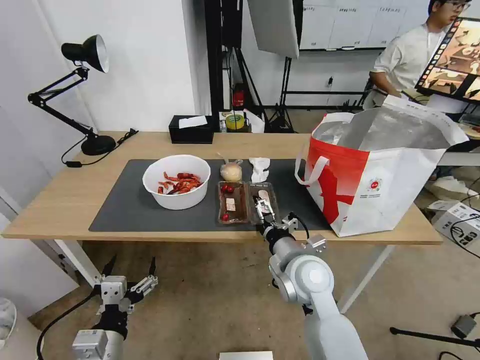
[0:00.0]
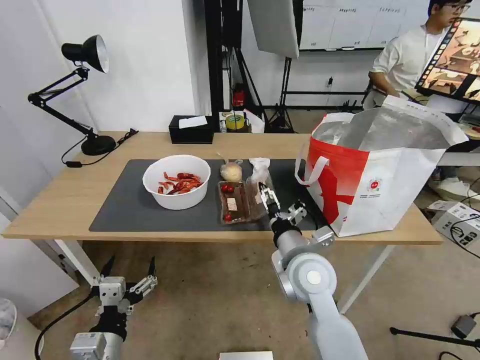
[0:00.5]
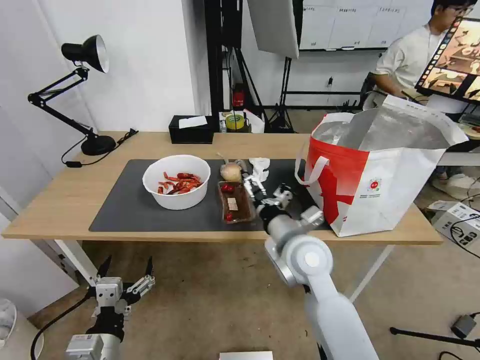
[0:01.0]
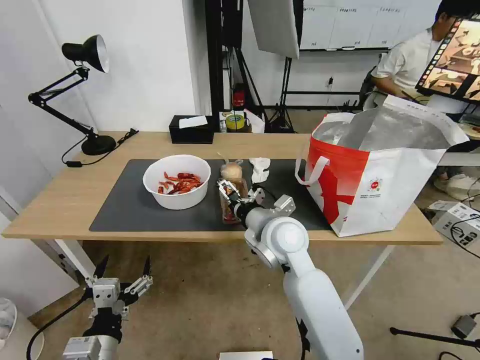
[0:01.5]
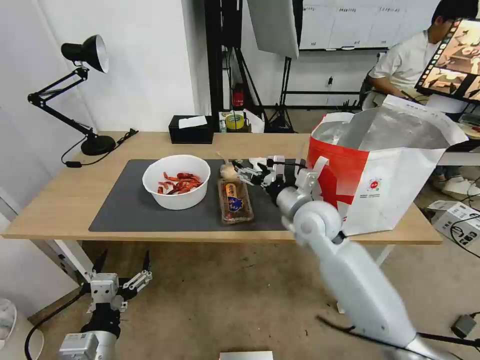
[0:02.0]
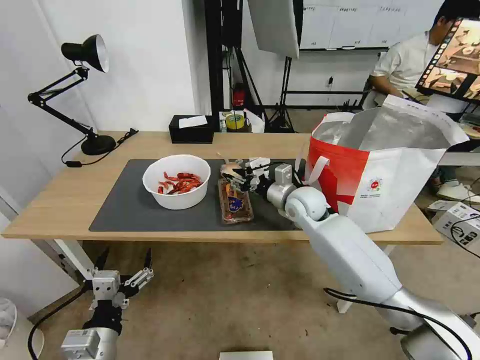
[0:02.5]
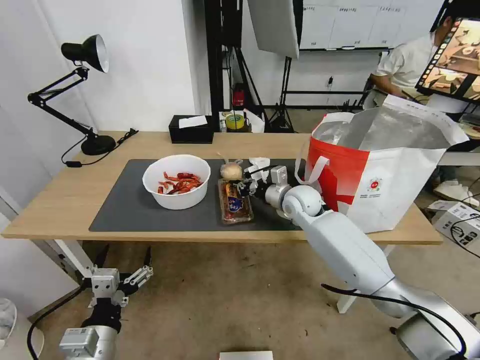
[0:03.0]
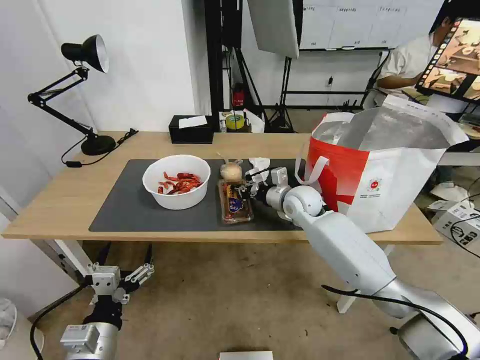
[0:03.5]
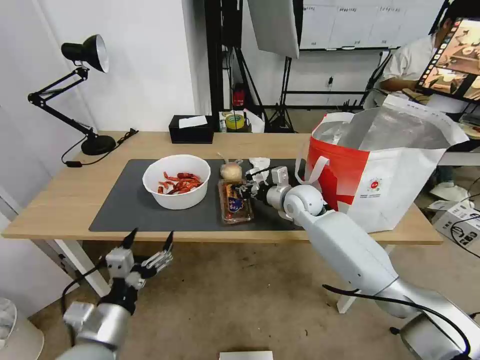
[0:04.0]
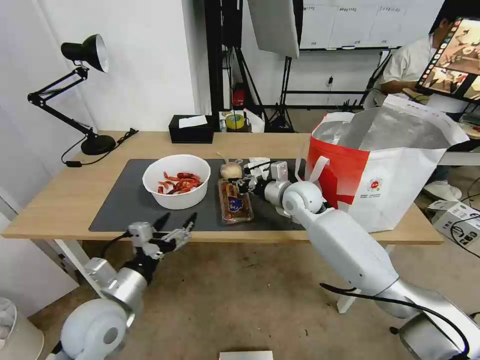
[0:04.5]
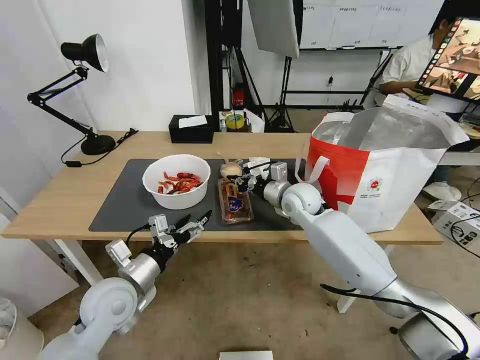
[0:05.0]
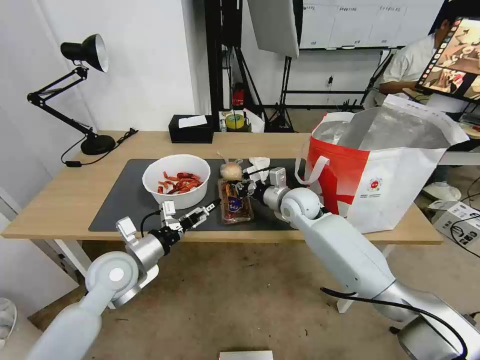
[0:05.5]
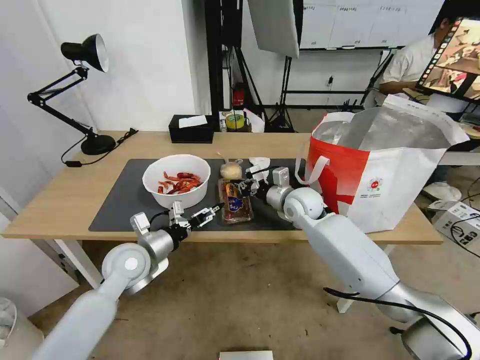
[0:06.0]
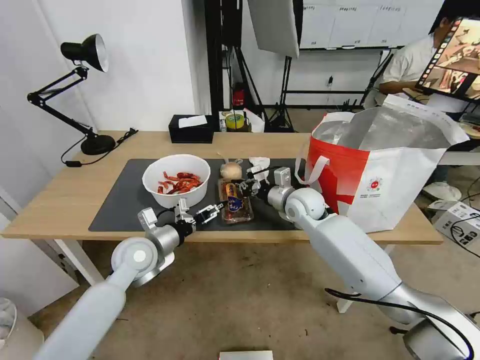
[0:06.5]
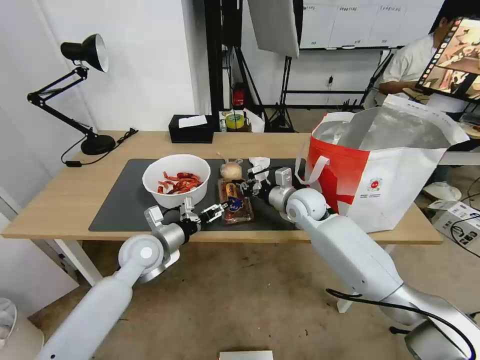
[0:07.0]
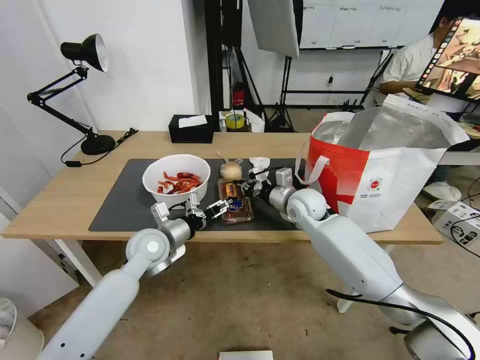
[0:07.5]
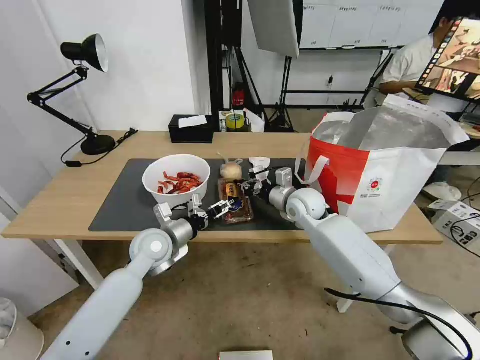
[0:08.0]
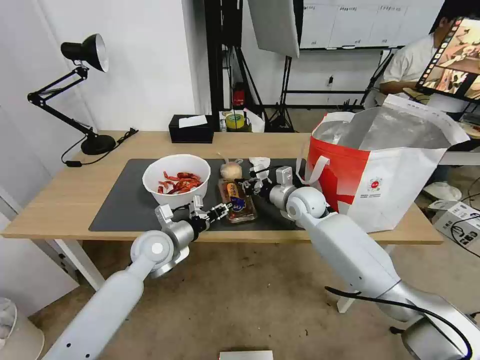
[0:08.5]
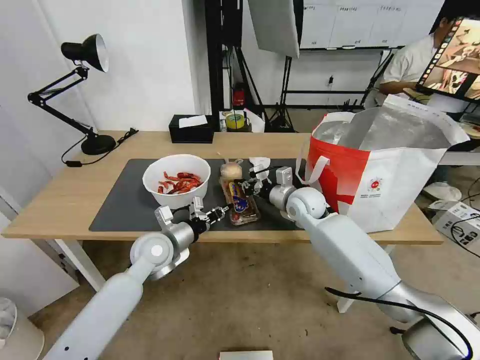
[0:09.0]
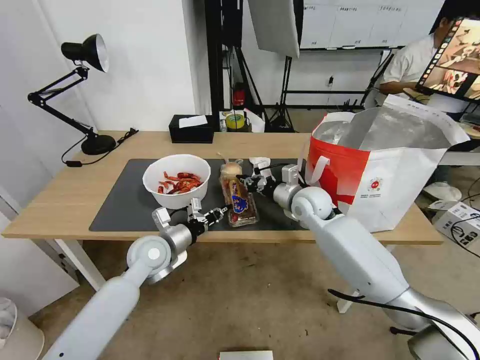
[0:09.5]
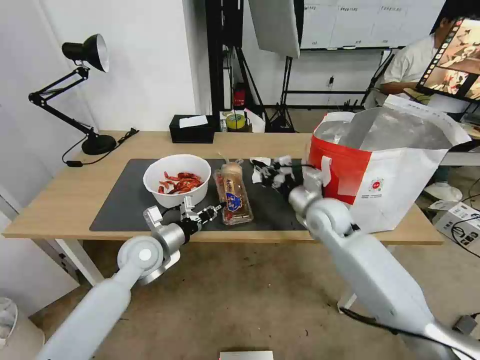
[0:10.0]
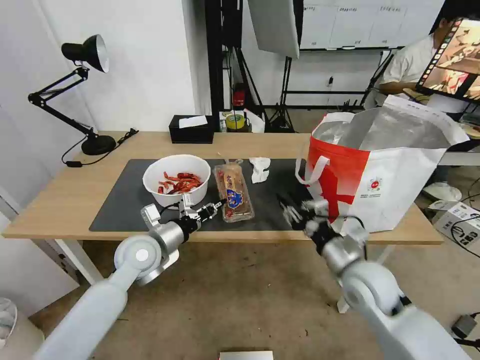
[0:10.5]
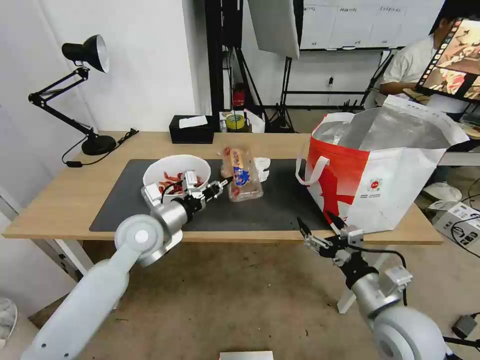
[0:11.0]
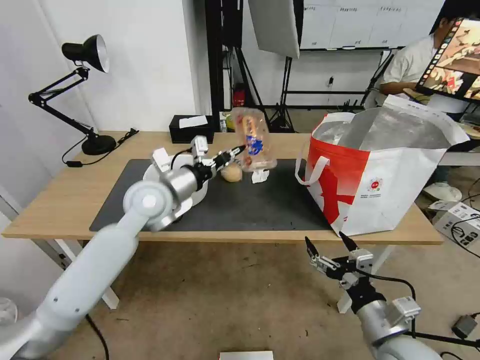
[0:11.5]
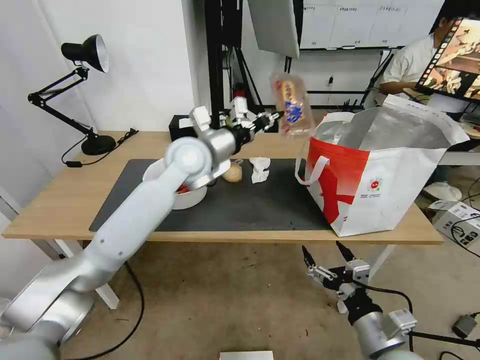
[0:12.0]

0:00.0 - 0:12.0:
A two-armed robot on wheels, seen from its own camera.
Task of the whole recording: Pick up the trash from the table and place it into the takeout bag.
0:00.0 - 0:02.0: The right gripper is displaced forward and upward by roughly 10 cm.
0:02.0 - 0:04.0: The right gripper shifts about 10 cm forward, and closes.
0:04.0 - 0:06.0: The left gripper shifts approximately 20 cm forward.
0:06.0 - 0:08.0: The left gripper changes place by approximately 5 cm.
0:08.0 - 0:10.0: The left gripper closes. The right gripper moves backward, approximately 5 cm.
0:10.0 - 0:12.0: The left gripper travels upward, to the right and forward by about 25 cm; the right gripper shifts approximately 30 cm backward, and opens its fingers.

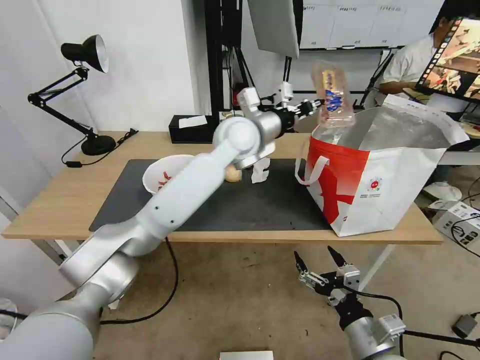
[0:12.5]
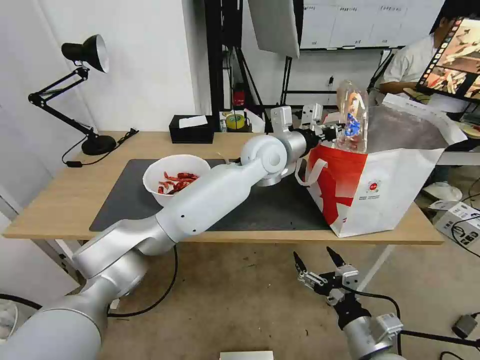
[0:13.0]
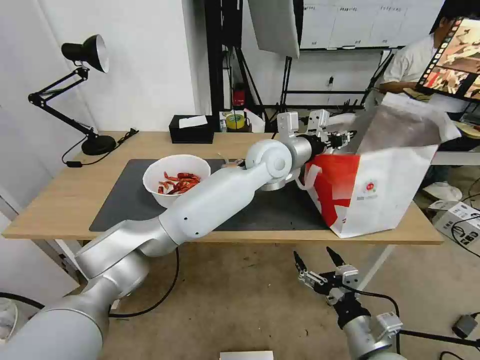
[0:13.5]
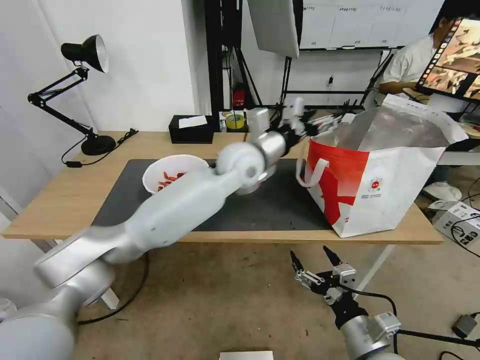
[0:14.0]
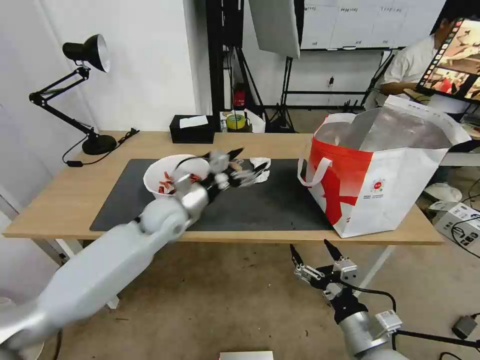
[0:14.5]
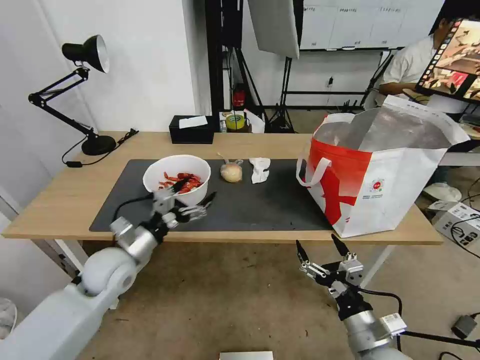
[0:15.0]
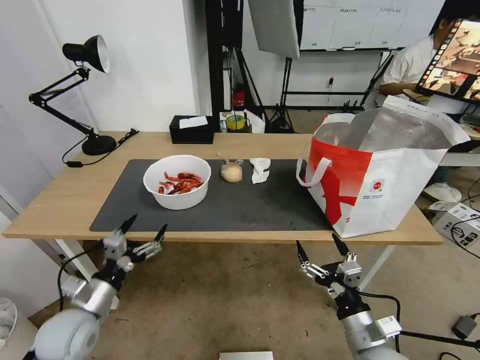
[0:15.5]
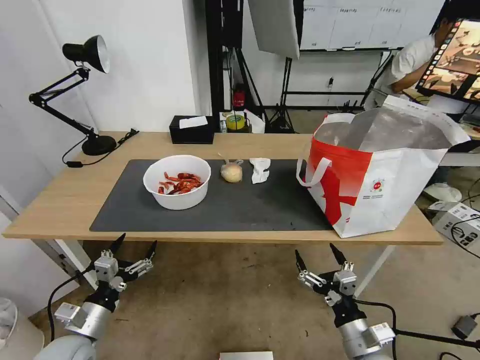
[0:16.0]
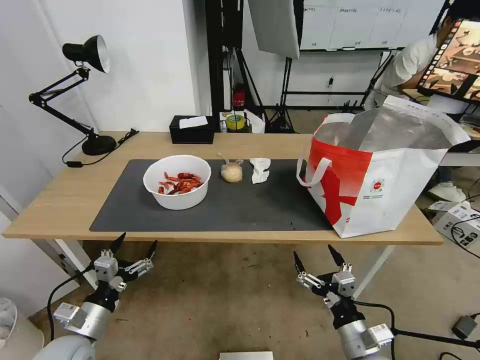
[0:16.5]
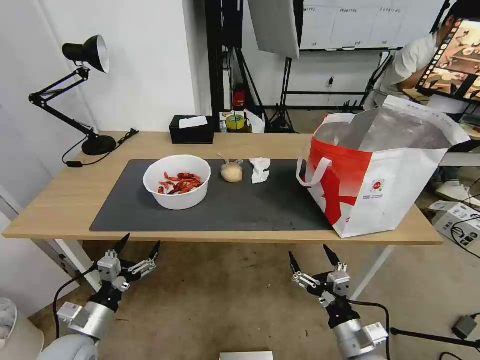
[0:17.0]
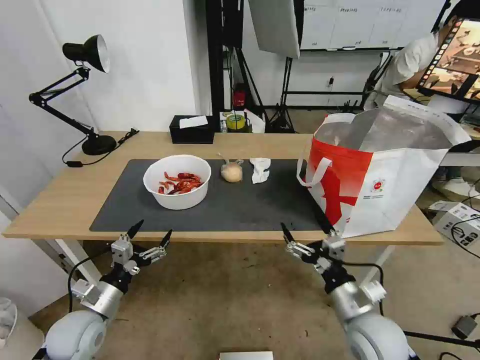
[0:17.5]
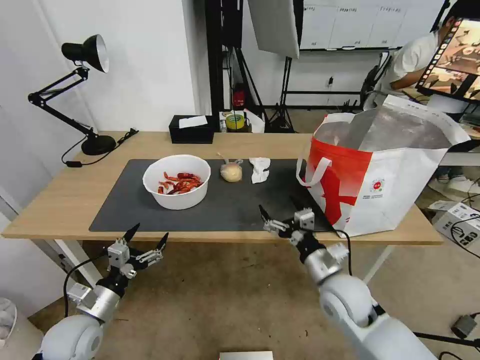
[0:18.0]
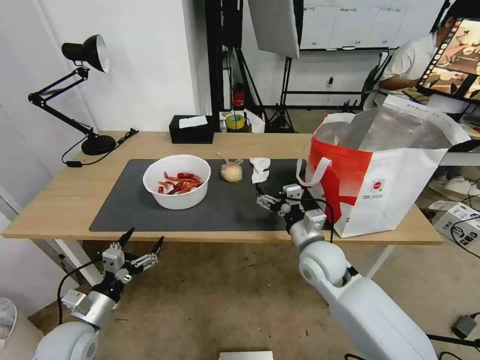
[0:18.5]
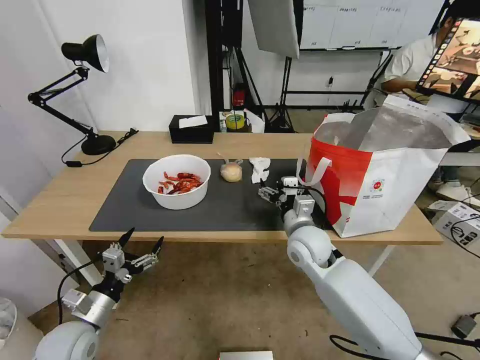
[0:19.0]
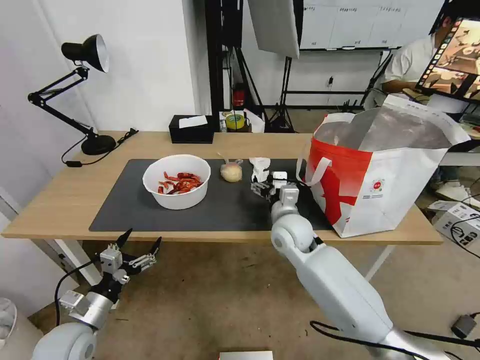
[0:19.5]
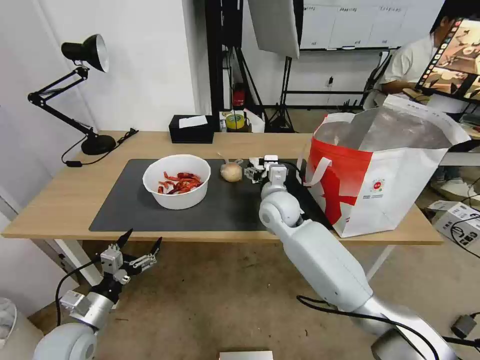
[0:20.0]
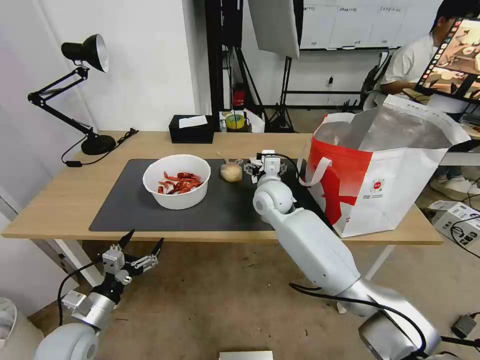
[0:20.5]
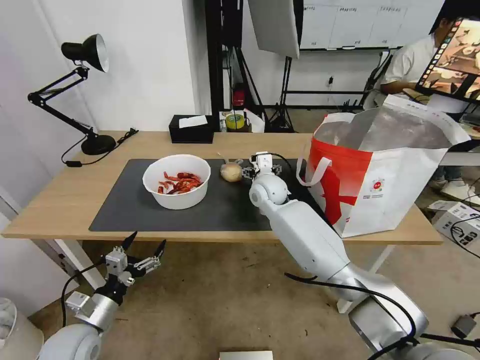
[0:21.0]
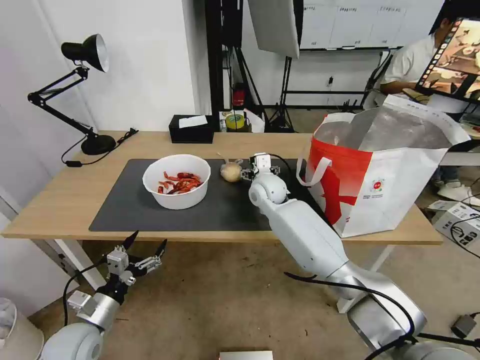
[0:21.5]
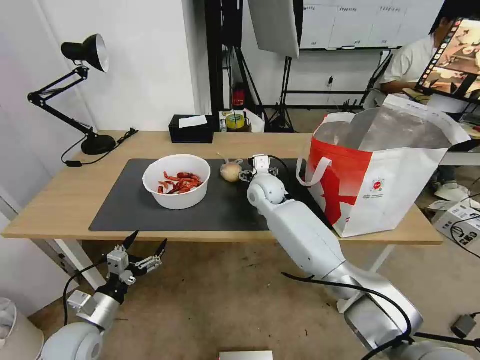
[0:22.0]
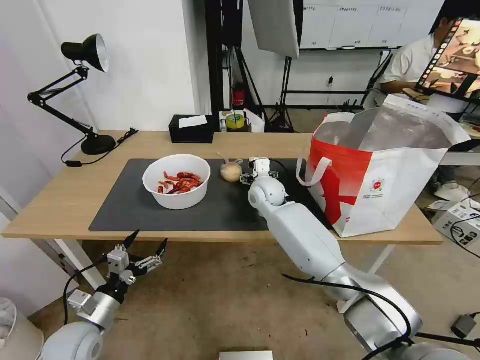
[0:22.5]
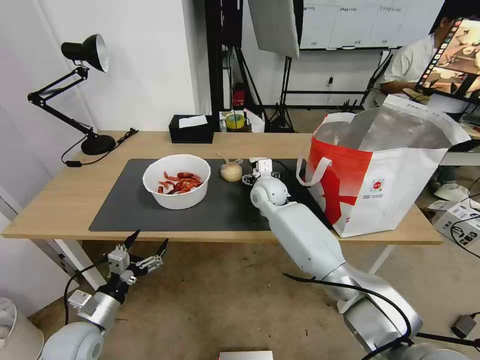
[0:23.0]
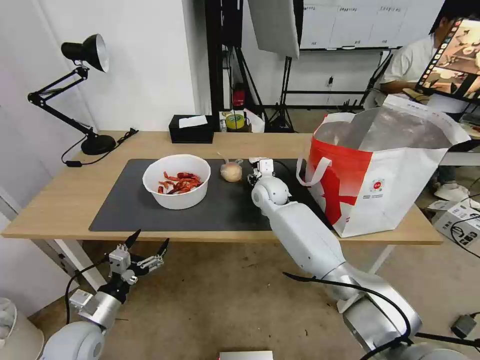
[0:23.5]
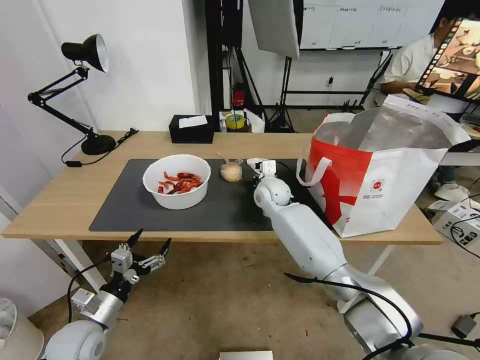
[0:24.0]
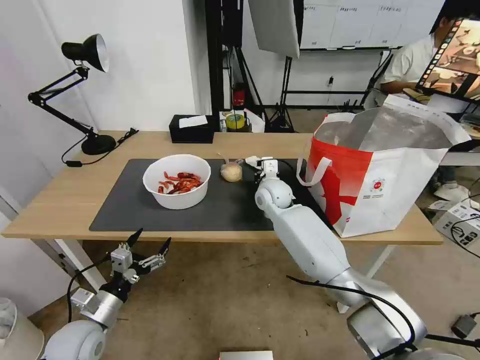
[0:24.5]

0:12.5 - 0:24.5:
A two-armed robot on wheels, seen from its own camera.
Task of the whole recording: Pick up the trash from the table and place it into the takeout bag.
0:12.5 - 0:14.5: The left gripper goes approximately 25 cm to the left, downward and backward, and opens.
0:14.5 - 0:16.5: The right gripper shifts roughly 5 cm downward. The left gripper heads backward, to the left and downward, covering approximately 35 cm.
0:16.5 - 0:18.5: The right gripper is displaced forward and upward by about 20 cm.
0:18.5 - 0:20.5: The right gripper moves forward and to the left, roughly 20 cm.
0:20.5 - 0:22.5: The grippers make only small movements.
0:22.5 - 0:24.5: The right gripper closes its fingers.

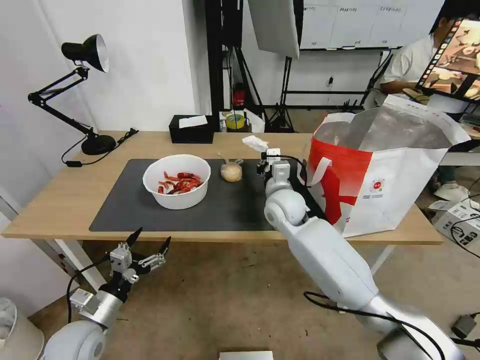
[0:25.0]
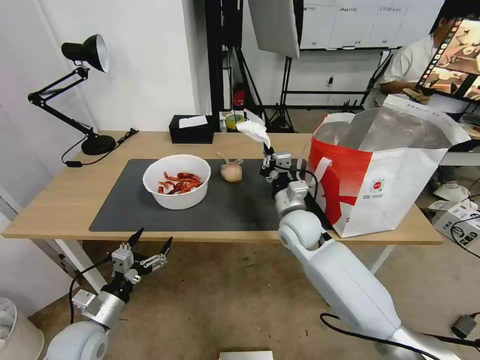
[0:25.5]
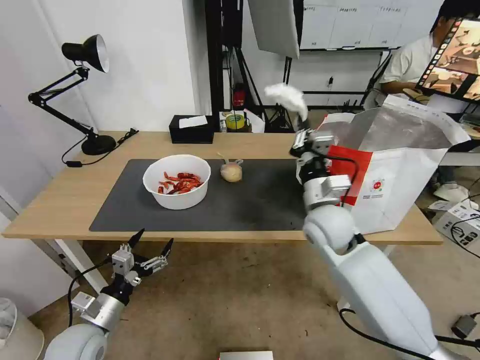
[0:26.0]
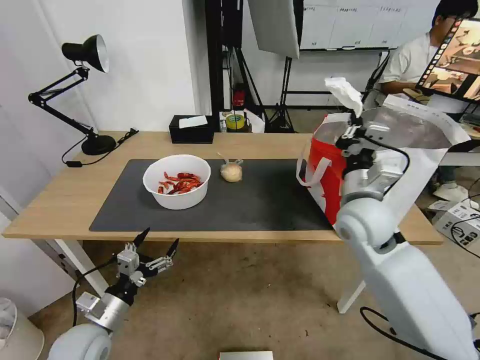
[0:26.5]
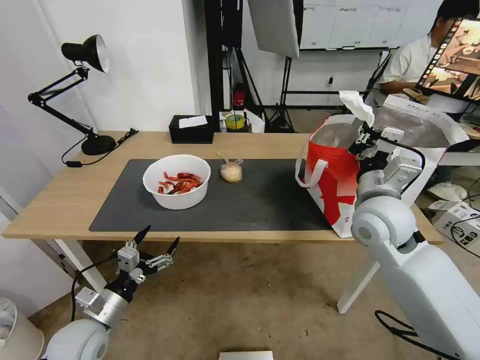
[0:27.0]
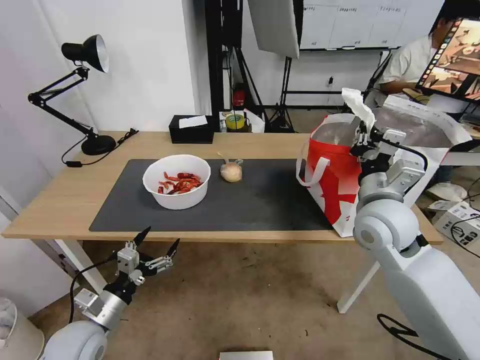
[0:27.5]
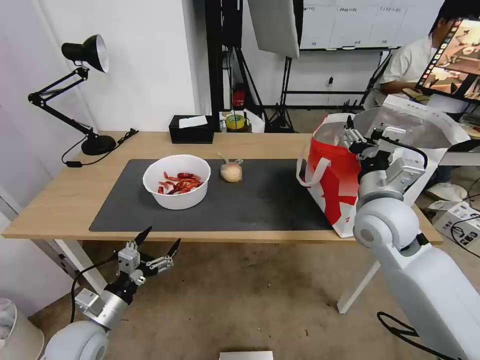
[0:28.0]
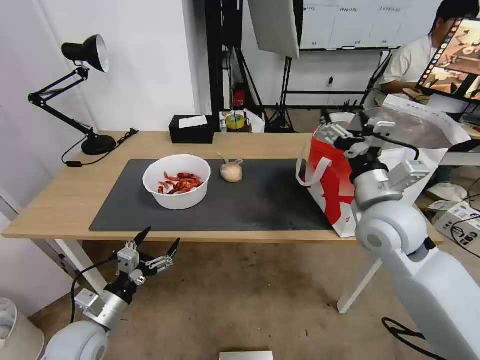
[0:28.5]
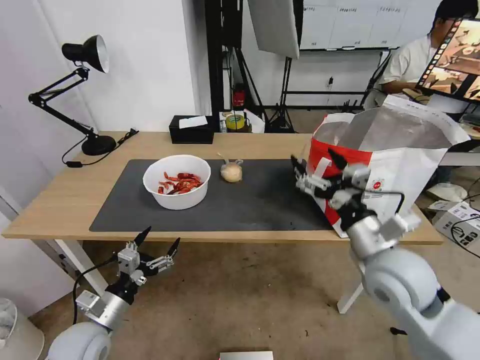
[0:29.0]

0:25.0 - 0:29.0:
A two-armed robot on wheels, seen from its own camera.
Task of the whole recording: Pick up the trash from the table and place it into the takeout bag.
0:25.0 - 0:27.0: The right gripper goes roughly 20 cm to the right, backward and upward.
0:27.0 - 0:29.0: The right gripper moves backward, approximately 10 cm, and opens its fingers.
